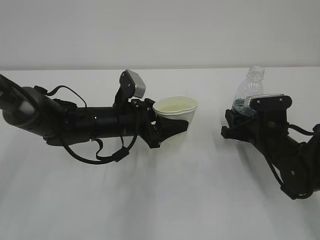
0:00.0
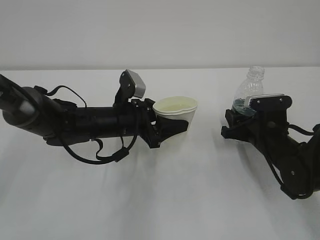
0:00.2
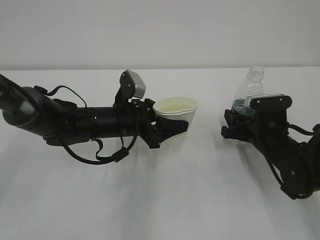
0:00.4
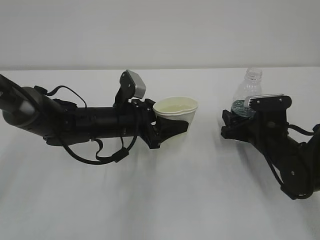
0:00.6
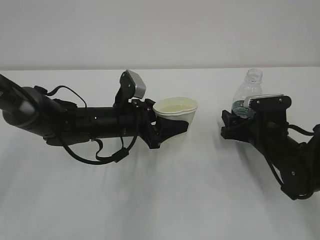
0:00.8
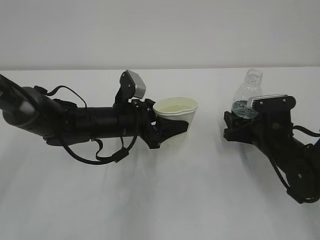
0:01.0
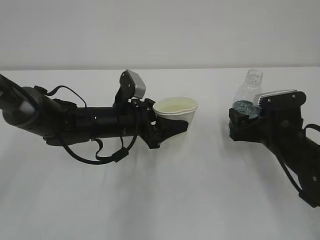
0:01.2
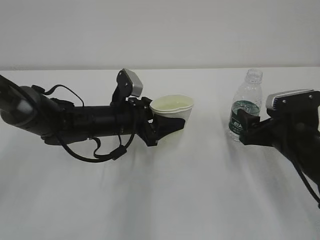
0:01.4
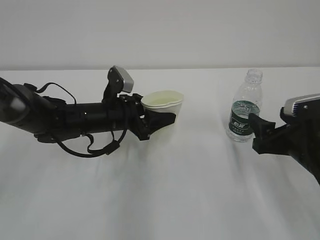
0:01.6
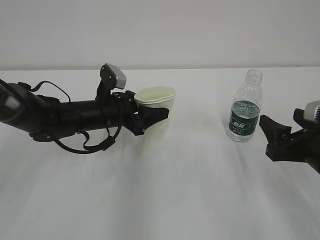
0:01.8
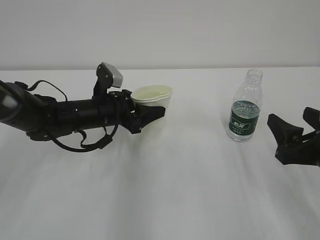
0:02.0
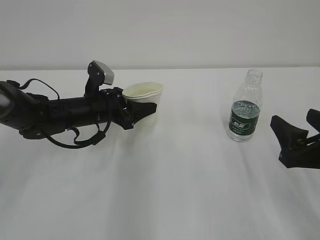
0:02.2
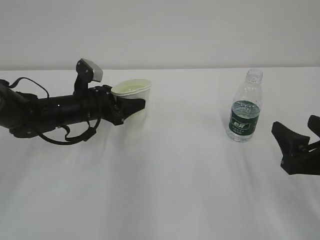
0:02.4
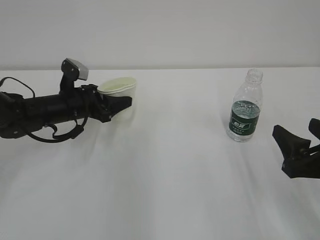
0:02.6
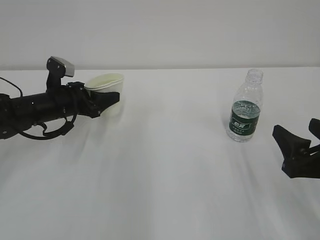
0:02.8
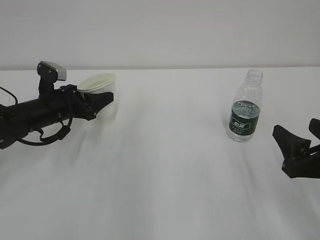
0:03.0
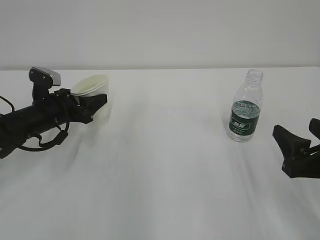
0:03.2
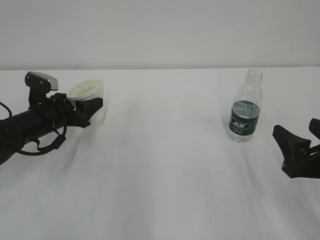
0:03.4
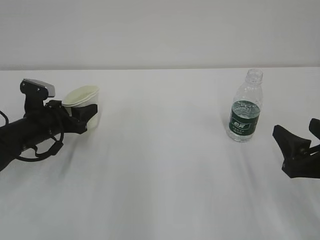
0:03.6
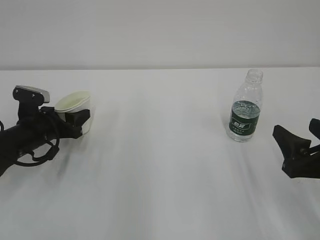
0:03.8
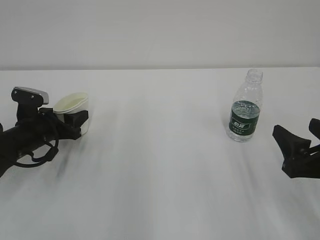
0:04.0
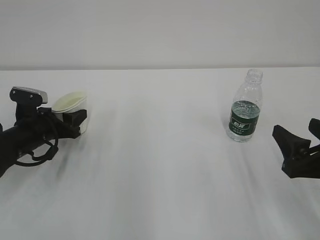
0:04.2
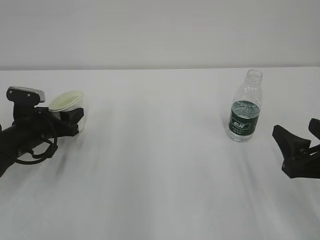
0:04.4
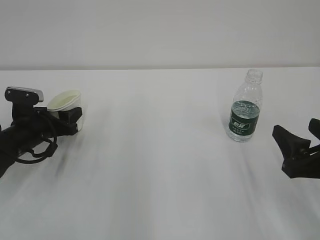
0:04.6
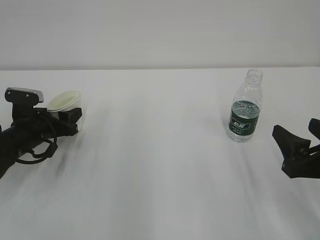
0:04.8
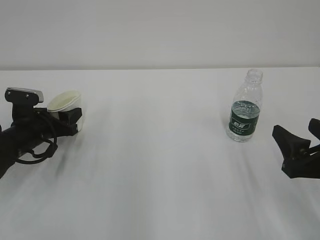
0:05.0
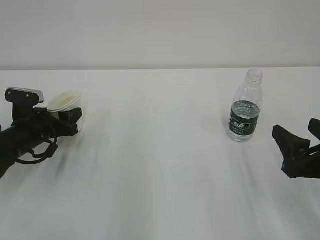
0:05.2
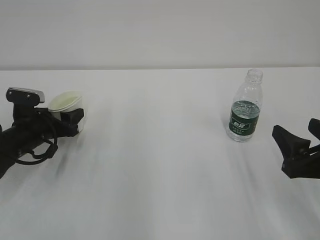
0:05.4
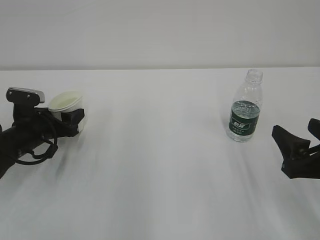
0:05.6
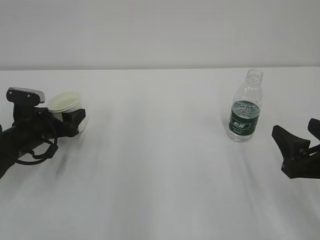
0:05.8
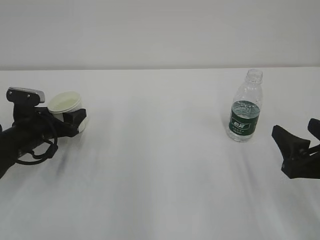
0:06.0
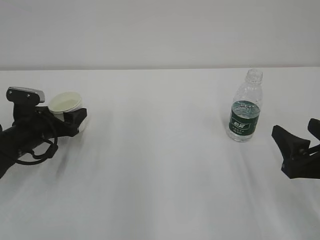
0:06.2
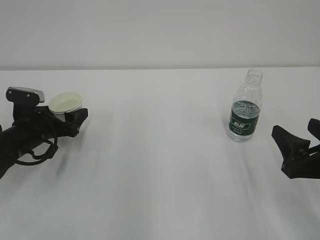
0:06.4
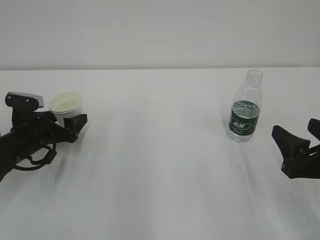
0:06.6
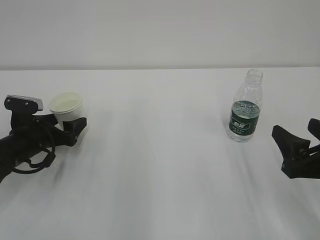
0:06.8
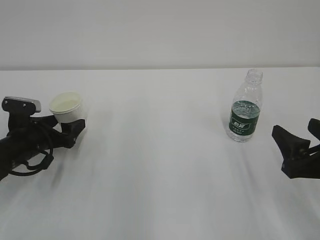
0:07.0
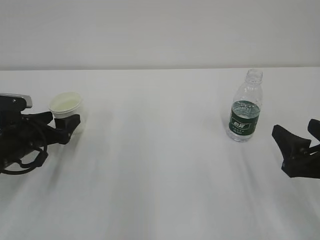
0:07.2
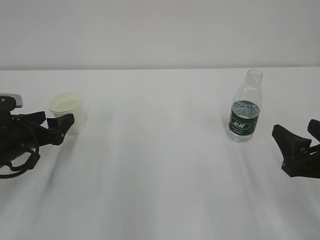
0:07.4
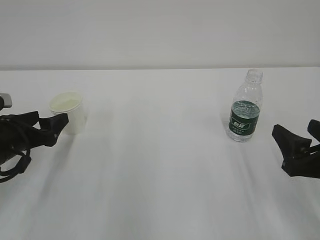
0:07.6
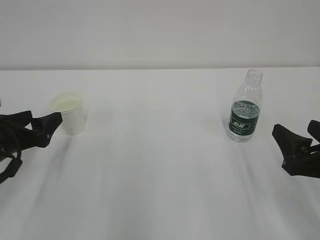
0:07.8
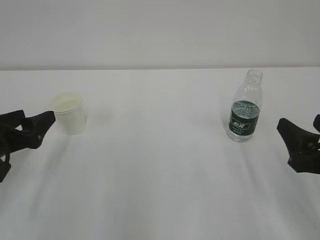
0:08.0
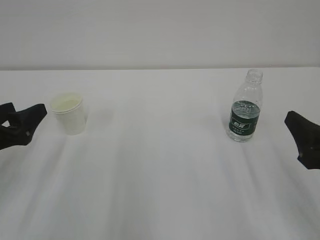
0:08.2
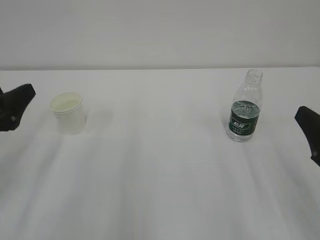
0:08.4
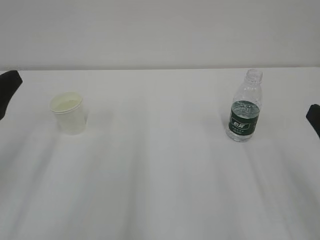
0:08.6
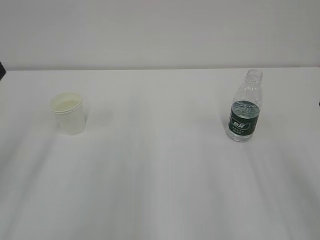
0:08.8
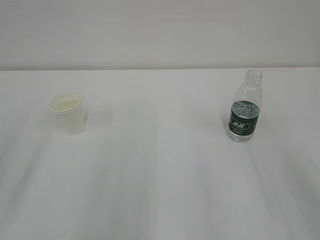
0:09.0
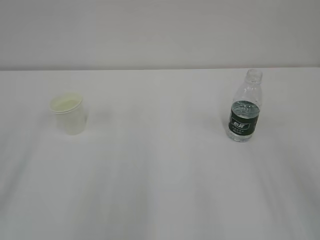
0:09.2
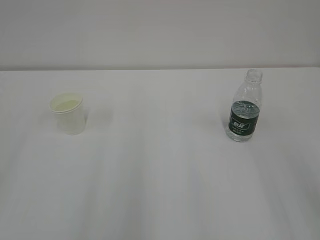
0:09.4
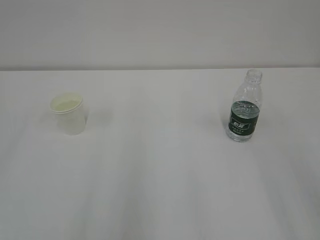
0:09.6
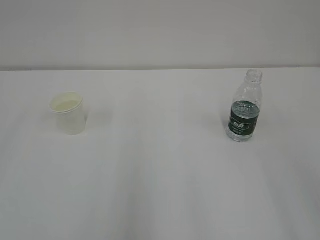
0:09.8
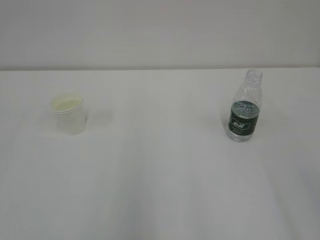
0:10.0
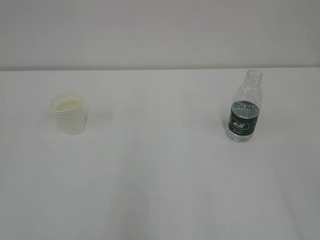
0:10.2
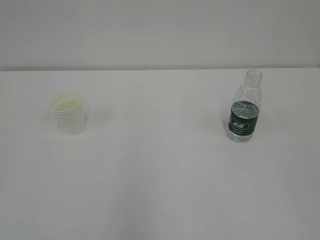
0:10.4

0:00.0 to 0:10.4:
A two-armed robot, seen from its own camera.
0:00.0 to 0:01.4: The right gripper shifts some 5 cm backward, and opens up.
0:01.4 to 0:03.0: The right gripper is displaced backward by approximately 10 cm. The left gripper goes some 15 cm to the left.
0:03.0 to 0:04.4: The left gripper changes place by approximately 5 cm.
0:06.0 to 0:07.4: The left gripper moves roughly 5 cm, and opens.
0:07.4 to 0:09.0: The right gripper is displaced upward and backward by some 15 cm. The left gripper travels upward and backward by approximately 25 cm.

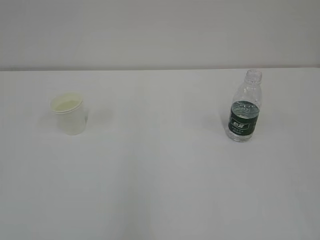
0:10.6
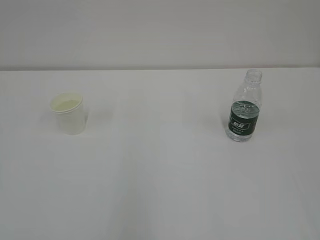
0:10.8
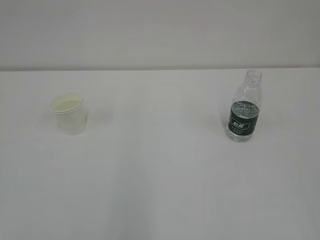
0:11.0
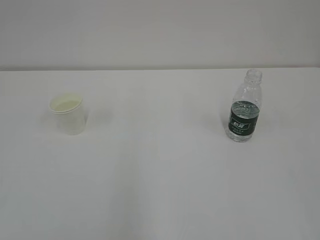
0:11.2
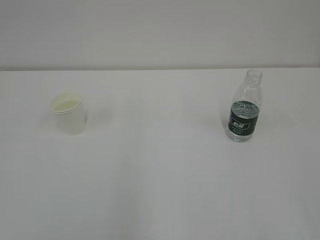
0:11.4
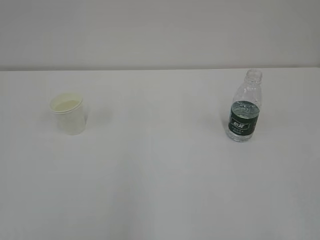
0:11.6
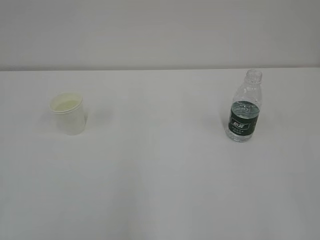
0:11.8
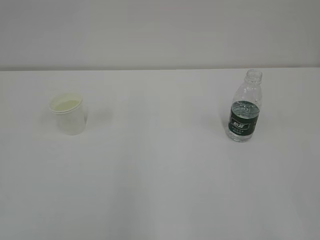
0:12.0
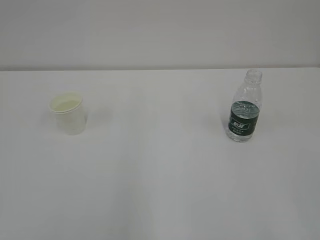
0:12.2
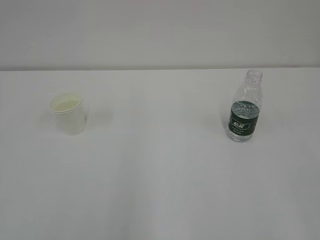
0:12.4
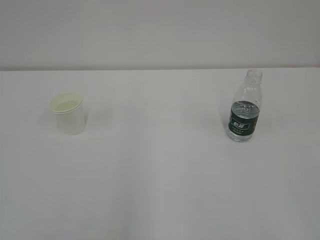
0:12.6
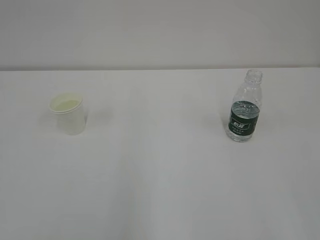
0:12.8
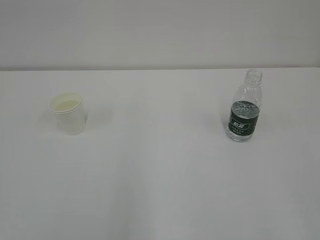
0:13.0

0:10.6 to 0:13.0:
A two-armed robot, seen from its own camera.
0:11.8 to 0:13.0: Both grippers stay put.

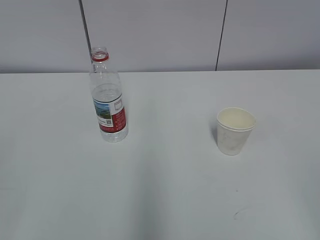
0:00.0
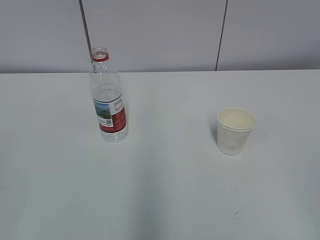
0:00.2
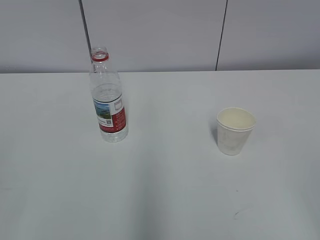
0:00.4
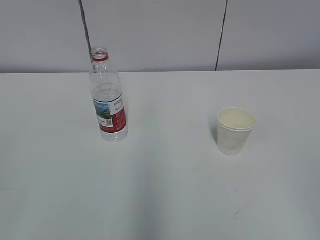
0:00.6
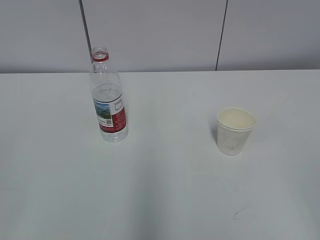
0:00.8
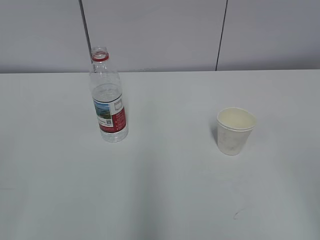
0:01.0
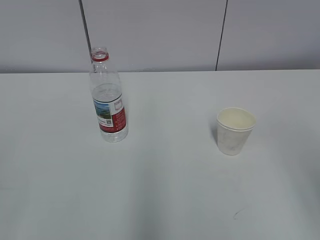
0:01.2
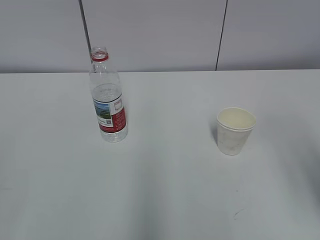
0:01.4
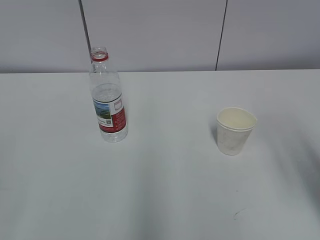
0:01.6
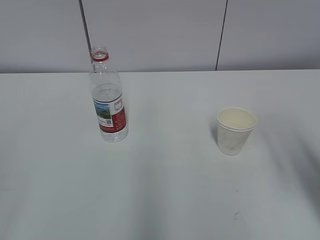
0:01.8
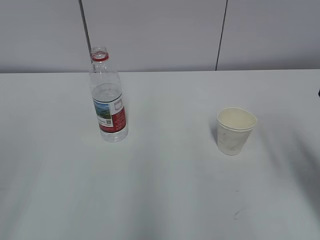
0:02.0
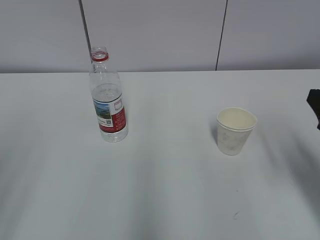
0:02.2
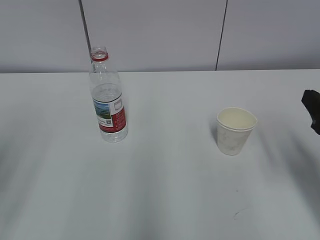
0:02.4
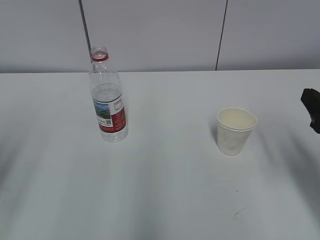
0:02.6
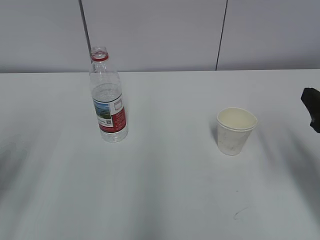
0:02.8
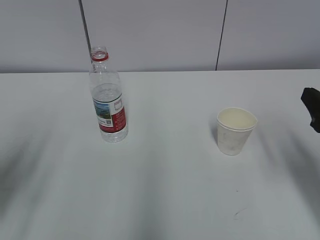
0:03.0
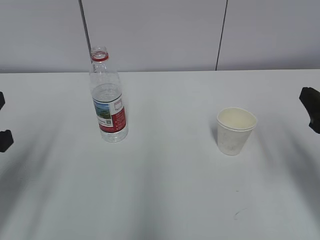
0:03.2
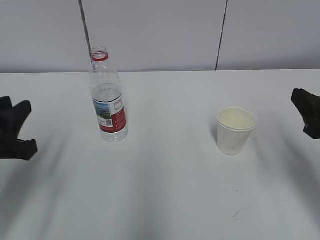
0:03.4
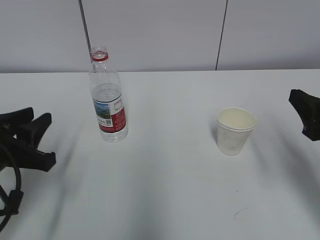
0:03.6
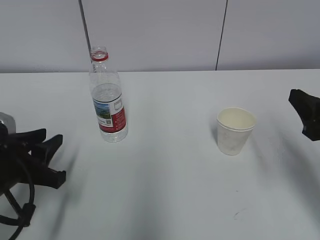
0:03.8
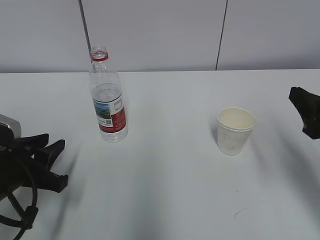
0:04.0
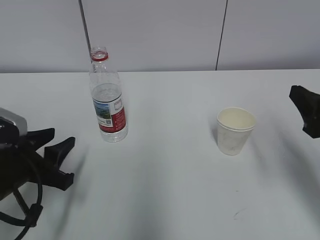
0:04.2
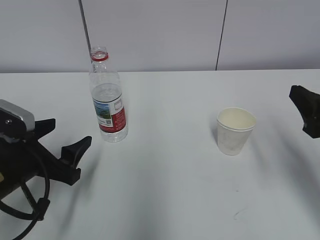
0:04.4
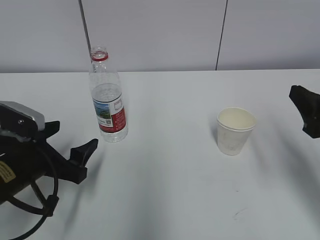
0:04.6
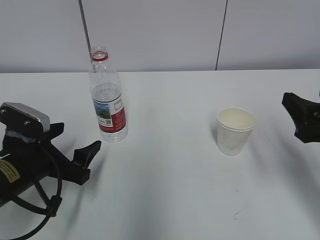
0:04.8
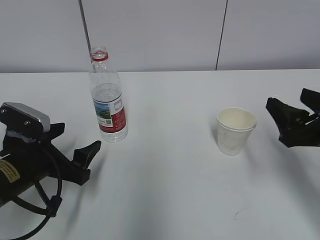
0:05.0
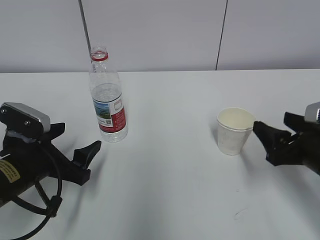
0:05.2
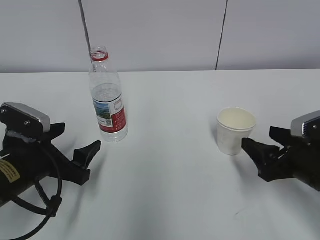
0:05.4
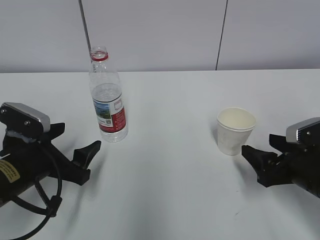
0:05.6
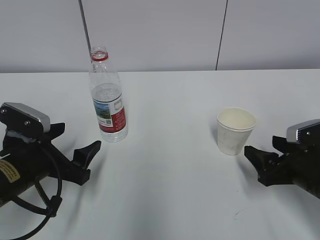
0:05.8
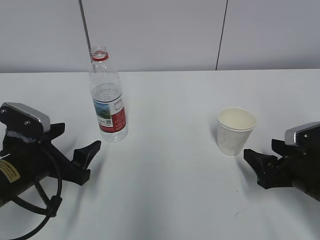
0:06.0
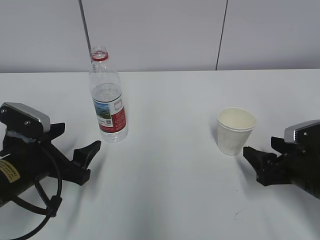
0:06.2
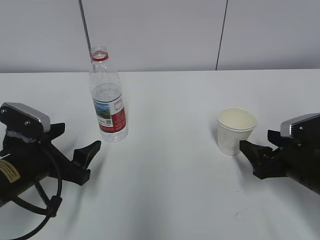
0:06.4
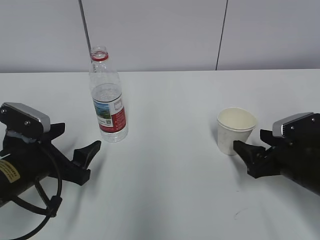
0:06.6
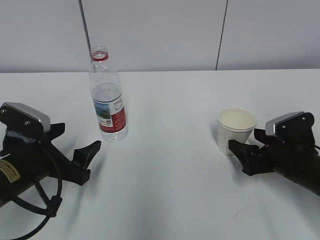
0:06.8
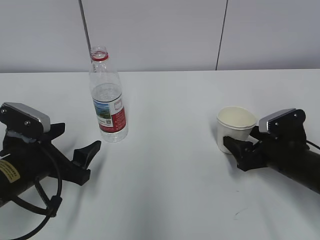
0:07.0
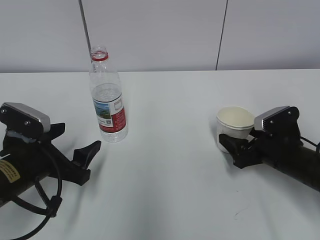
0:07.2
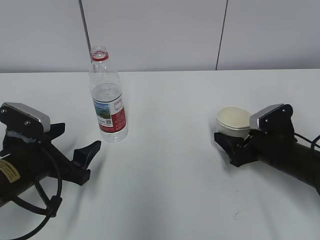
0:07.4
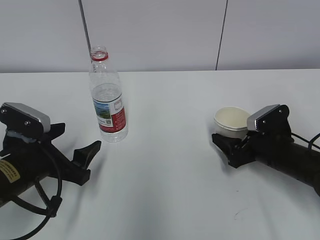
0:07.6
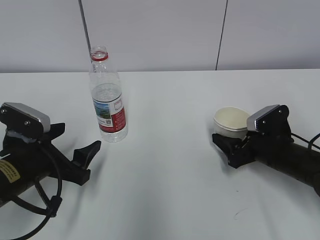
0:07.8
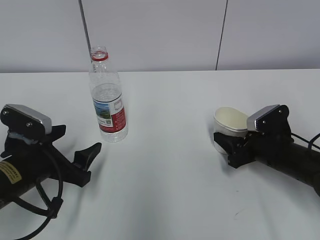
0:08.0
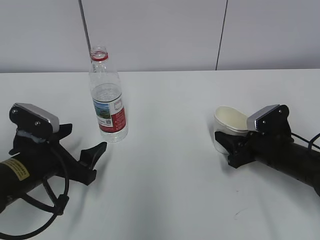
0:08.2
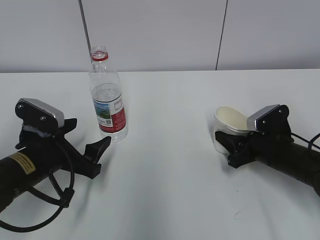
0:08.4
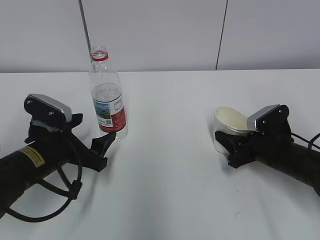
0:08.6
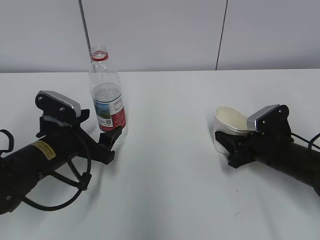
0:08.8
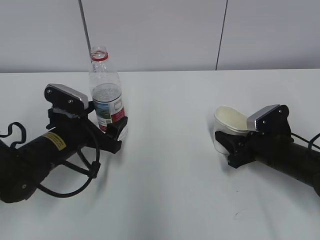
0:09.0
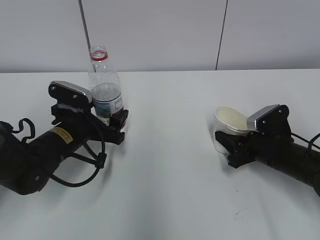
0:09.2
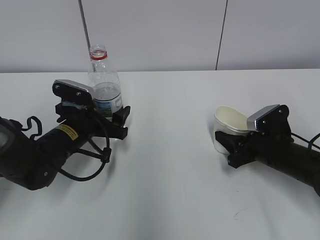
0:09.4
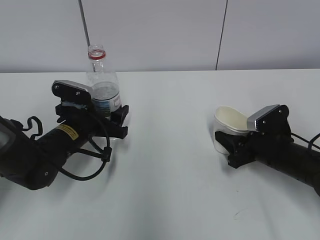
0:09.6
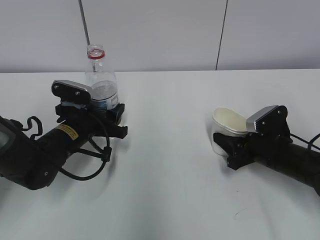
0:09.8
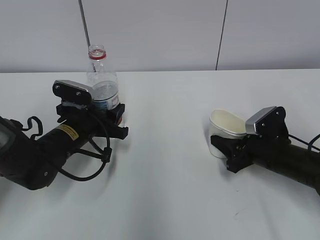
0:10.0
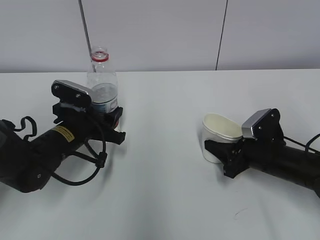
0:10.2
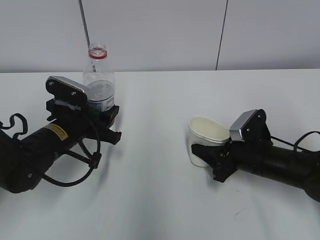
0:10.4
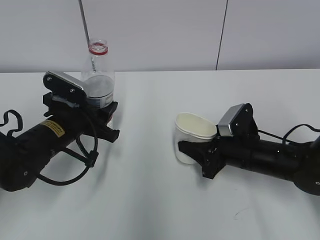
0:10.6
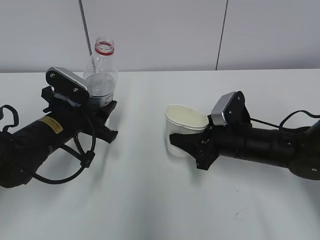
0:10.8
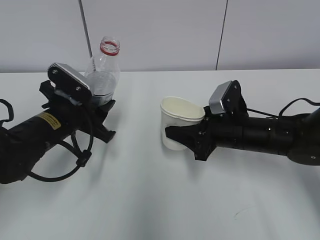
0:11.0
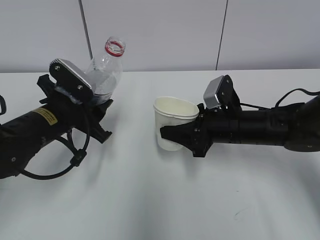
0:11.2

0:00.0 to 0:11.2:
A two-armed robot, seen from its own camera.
Step, 0:00.0 to 0:08.4: Grab the water bottle with the left hand.
0:01.6 to 0:03.2: The right gripper moves forward and downward, some 10 cm. The left gripper travels forward by approximately 20 cm.
0:03.2 to 0:04.8: The left gripper travels downward, forward and to the right by some 15 cm, and opens up.
0:04.8 to 0:06.4: The right gripper goes approximately 10 cm downward.
0:06.4 to 0:08.0: The right gripper moves forward, roughly 5 cm, and closes up.
0:08.0 to 0:09.6: The left gripper goes roughly 10 cm forward. Meanwhile the right gripper closes its fingers.
0:09.6 to 0:11.2: The left gripper is displaced upward by roughly 5 cm, and closes, while the right gripper is displaced to the left and upward by roughly 10 cm.
